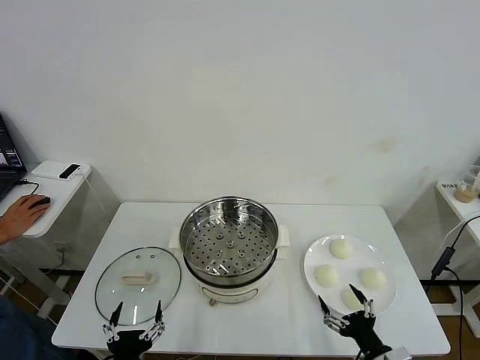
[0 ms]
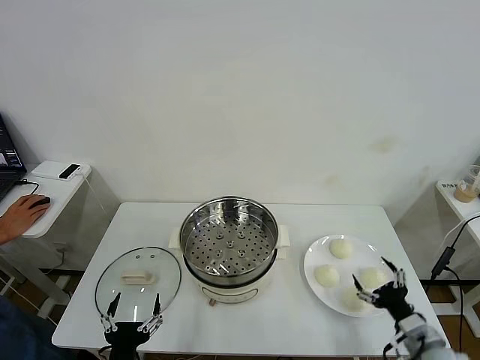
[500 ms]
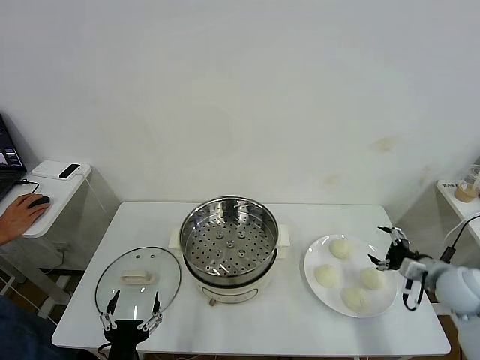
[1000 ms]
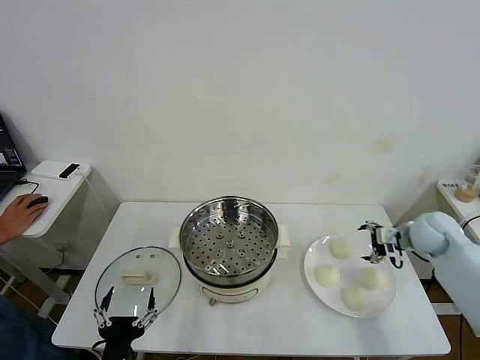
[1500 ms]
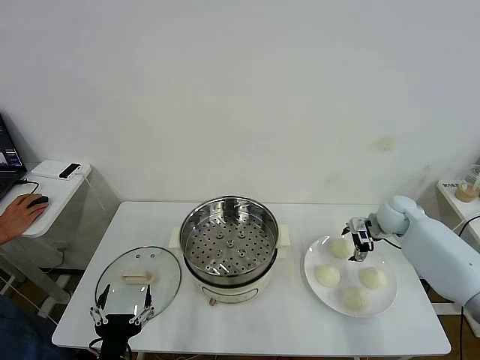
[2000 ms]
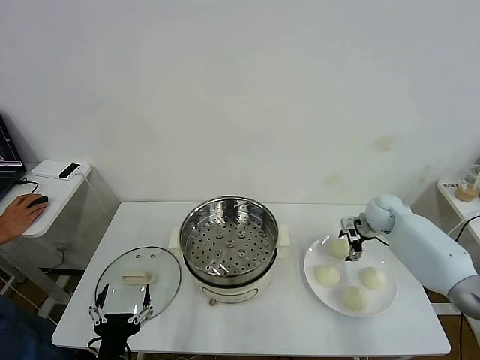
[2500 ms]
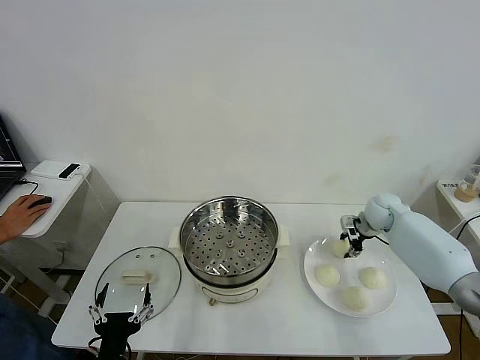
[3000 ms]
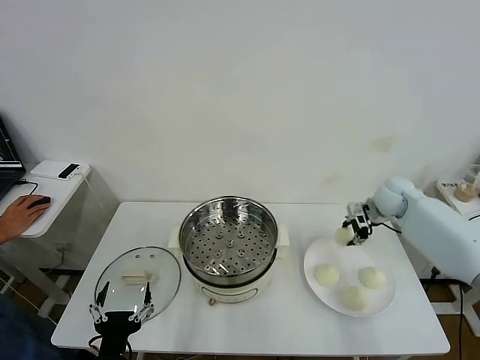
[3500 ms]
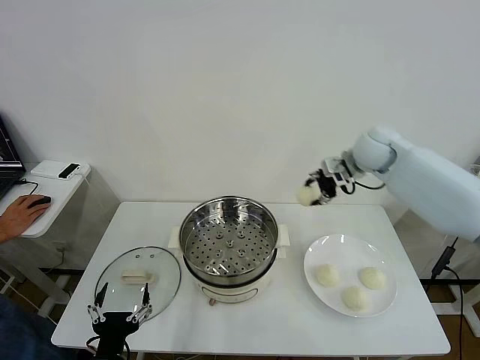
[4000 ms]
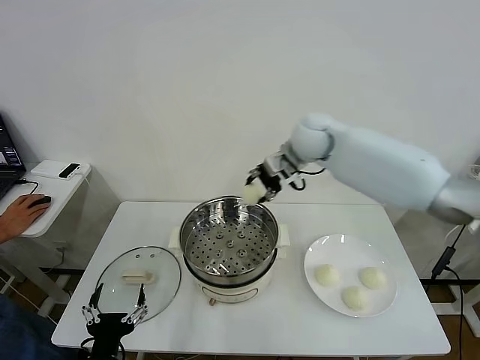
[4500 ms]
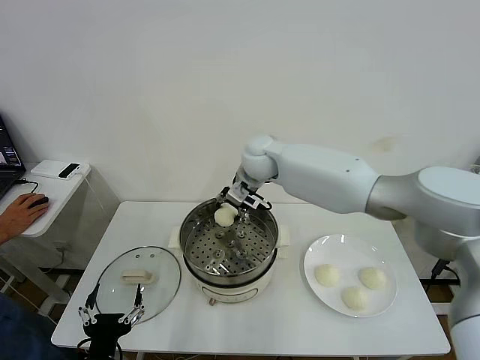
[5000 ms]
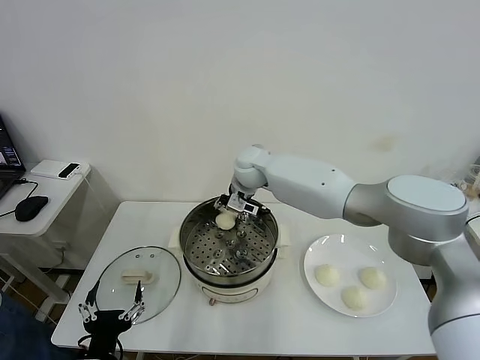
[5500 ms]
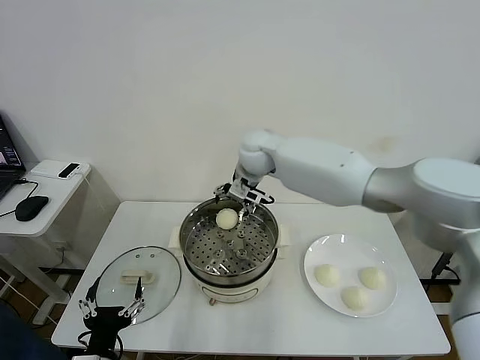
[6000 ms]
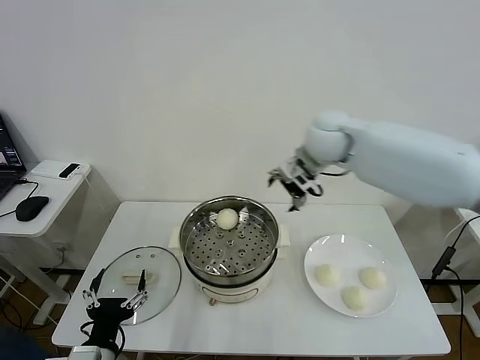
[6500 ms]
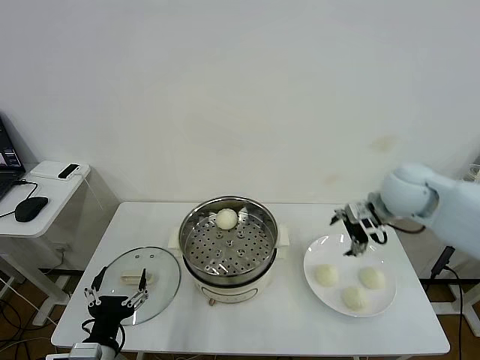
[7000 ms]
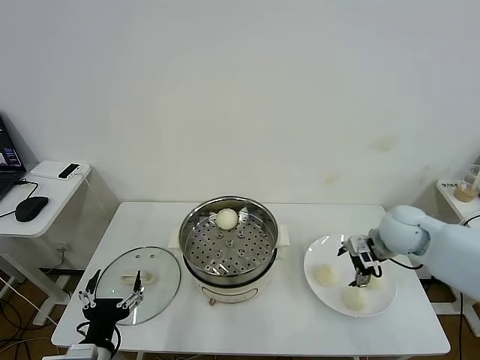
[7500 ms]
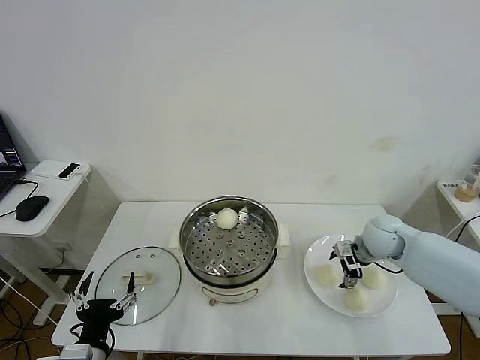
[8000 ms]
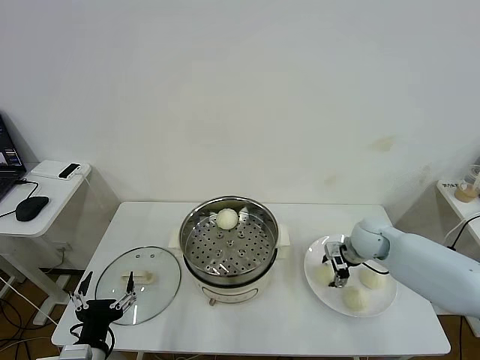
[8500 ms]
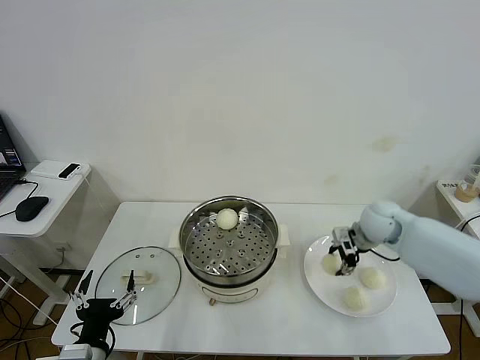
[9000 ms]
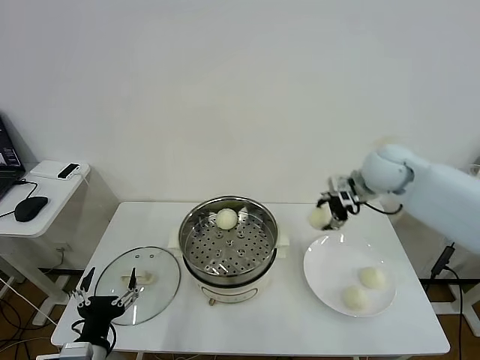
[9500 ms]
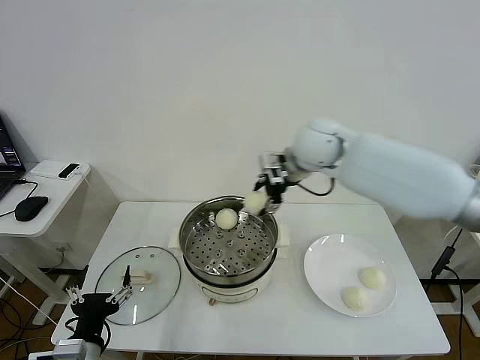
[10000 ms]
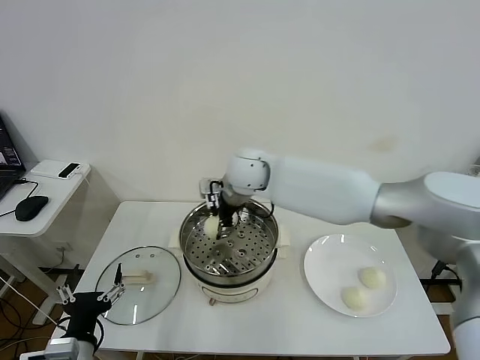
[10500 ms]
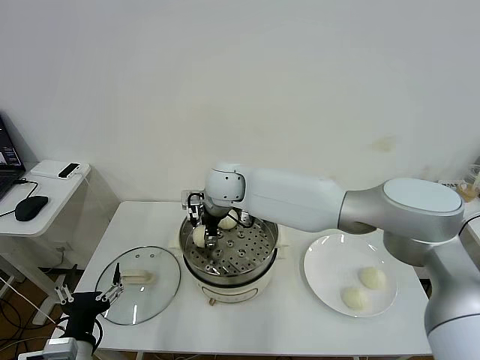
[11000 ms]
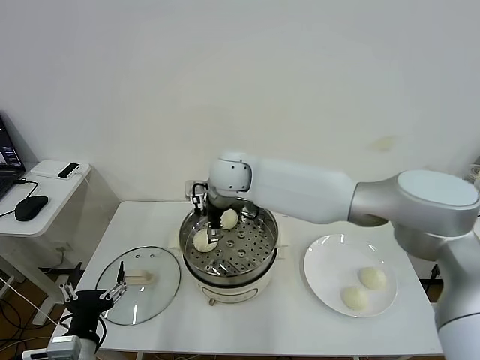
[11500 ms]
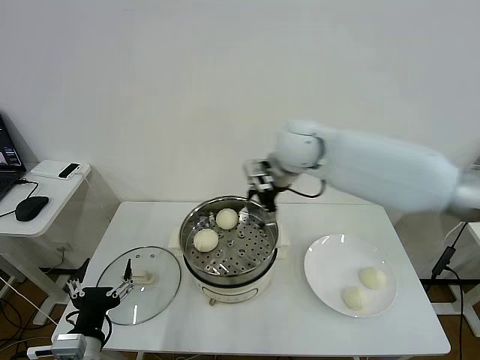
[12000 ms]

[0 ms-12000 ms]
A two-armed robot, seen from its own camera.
Task of the whole recording: take steamed baozi put them in steamer then cover it.
Step, 0 ms to 2500 ms: Grasp the baozi in the plate with right gripper.
Step, 3000 ms to 5500 ms: Place the baozi on the steamer with right gripper.
Step, 6000 ms to 8500 ms: Grasp the baozi in the plate with right gripper.
Step, 9000 ms to 11000 ms: Place the baozi on the steamer with right gripper.
2000 ms to 4000 ms: The right gripper shifts roughly 20 cm upward and to the left, and closes its fingers.
4000 ms to 6000 ms: The right gripper shifts some 25 cm to the left, and opens.
6000 ms to 8000 ms: The right gripper heads to the right, downward and backward, covering roughly 35 cm.
8000 ms to 10000 ms: The right gripper travels upward and to the left by roughly 30 cm, and closes up.
10000 ms to 12000 ms: The right gripper moves about 15 cm to the left and comes back, and opens.

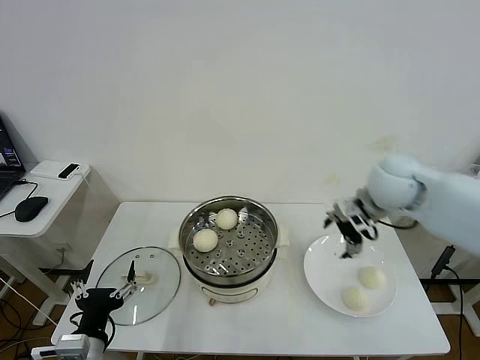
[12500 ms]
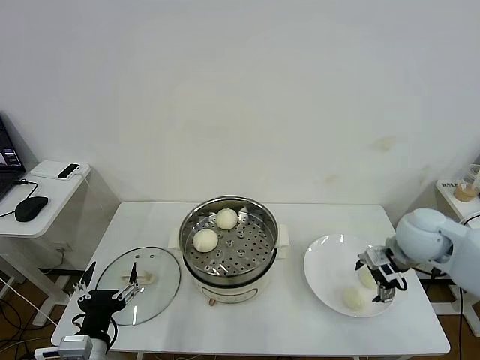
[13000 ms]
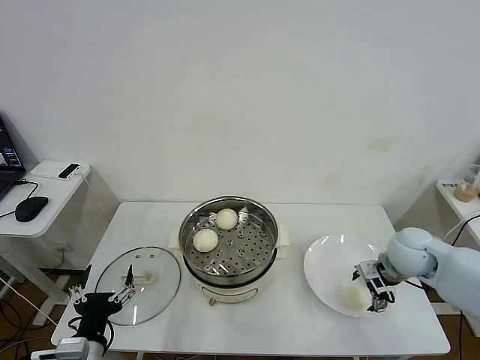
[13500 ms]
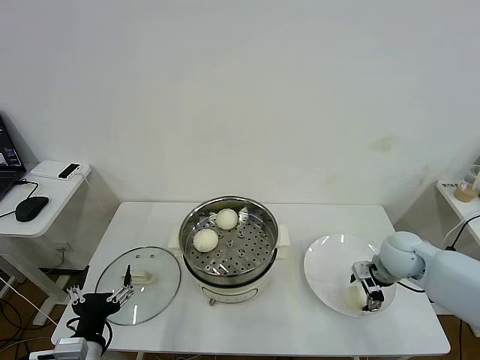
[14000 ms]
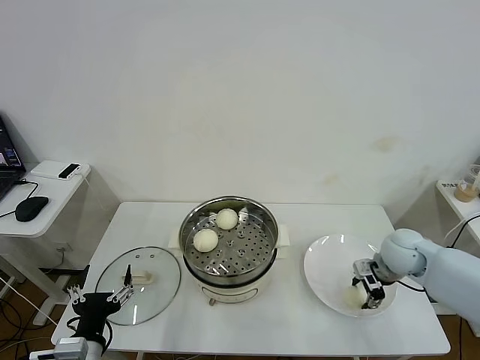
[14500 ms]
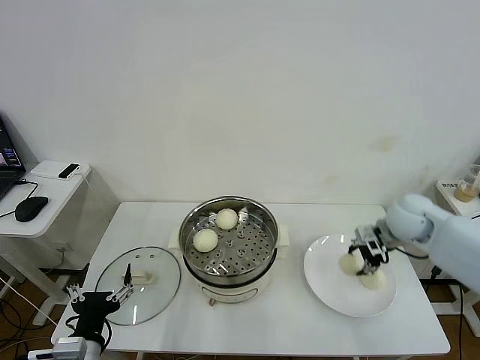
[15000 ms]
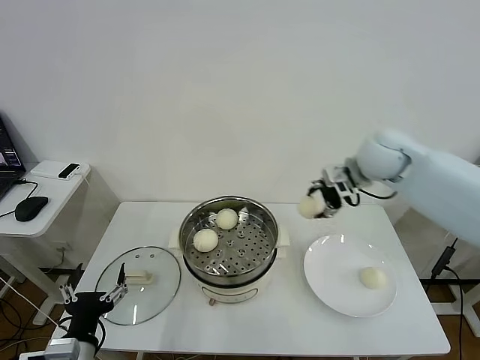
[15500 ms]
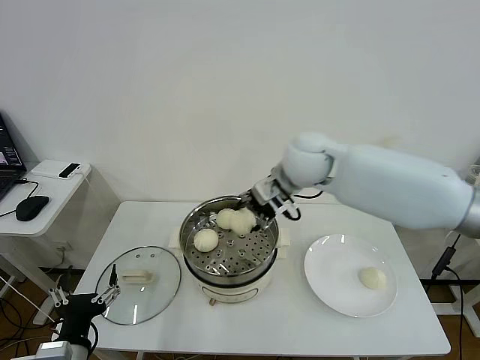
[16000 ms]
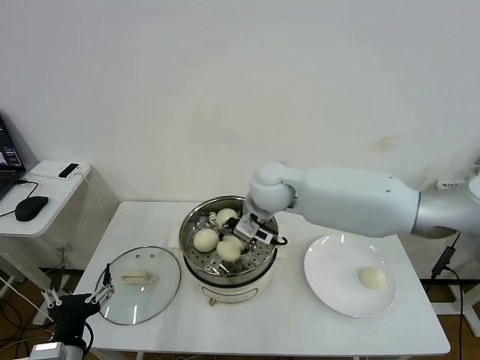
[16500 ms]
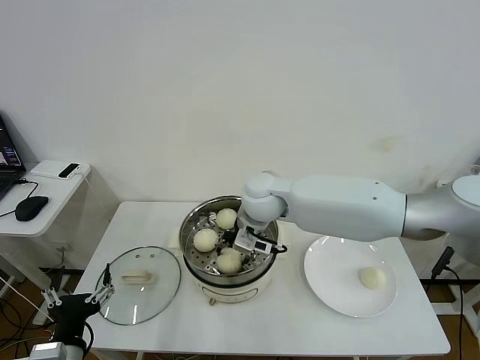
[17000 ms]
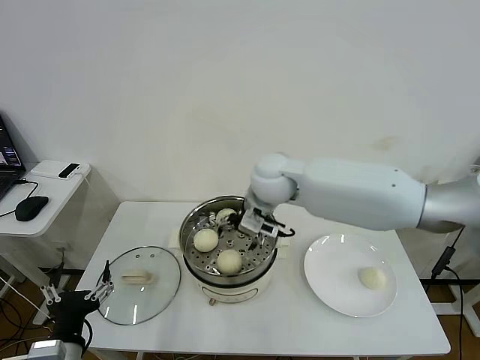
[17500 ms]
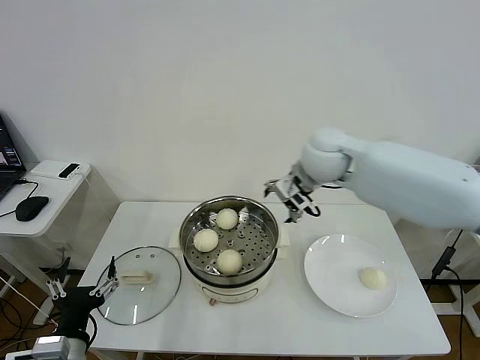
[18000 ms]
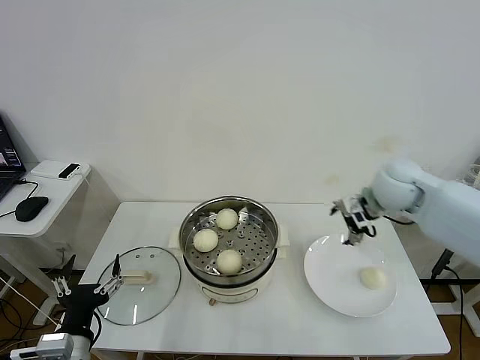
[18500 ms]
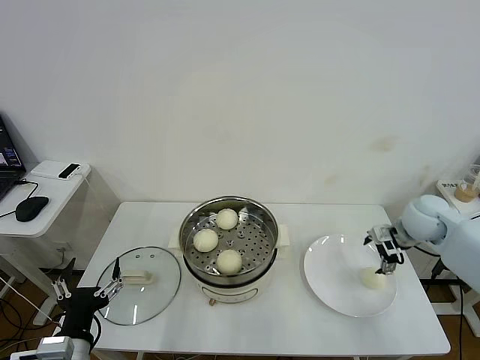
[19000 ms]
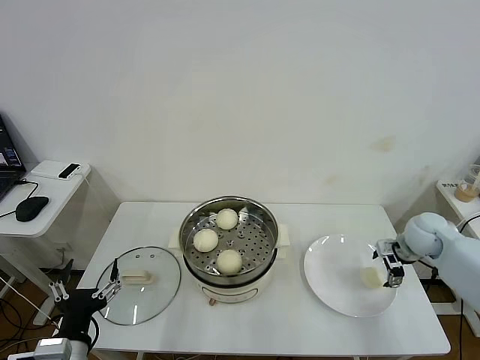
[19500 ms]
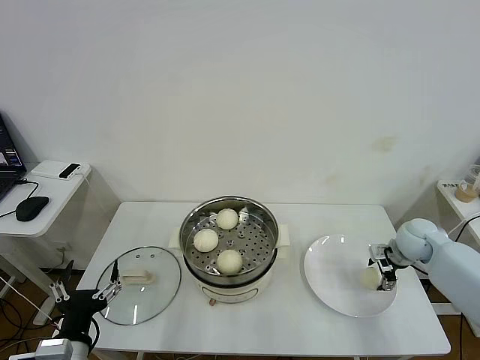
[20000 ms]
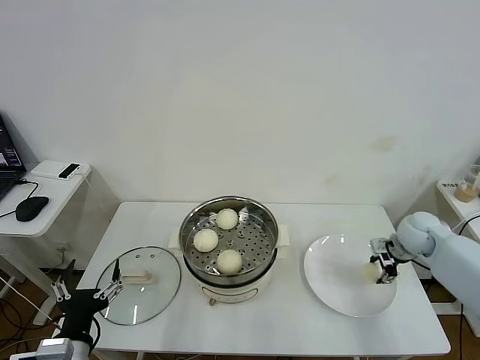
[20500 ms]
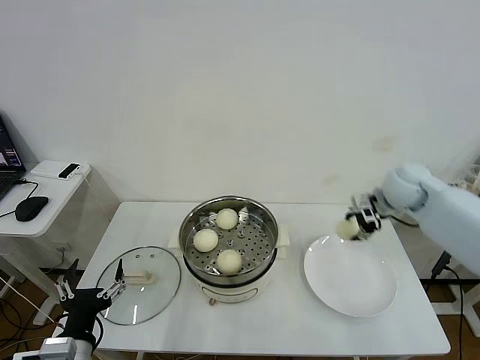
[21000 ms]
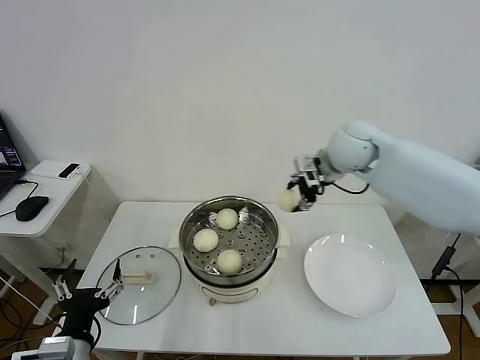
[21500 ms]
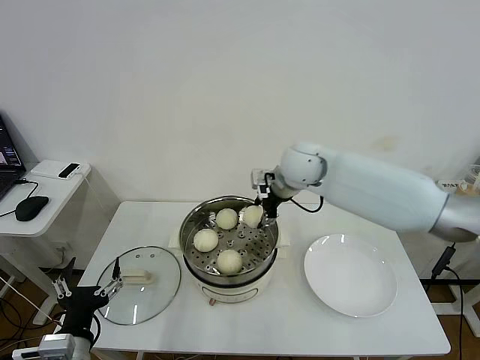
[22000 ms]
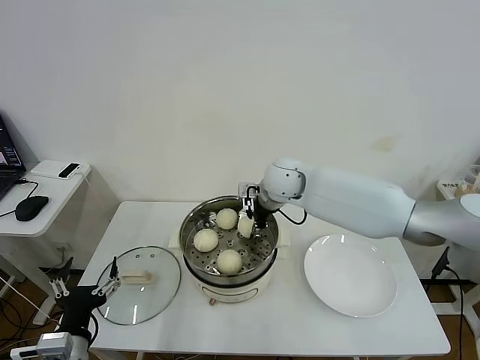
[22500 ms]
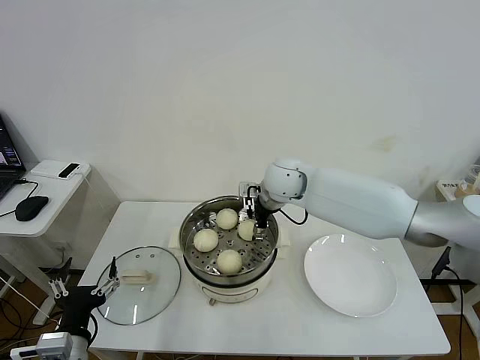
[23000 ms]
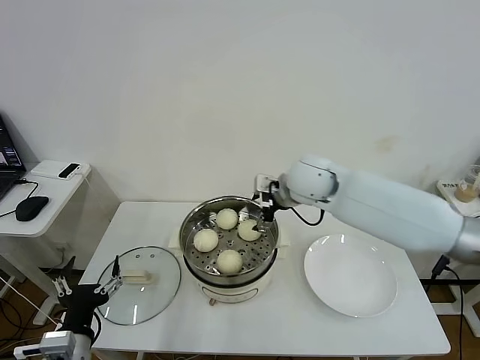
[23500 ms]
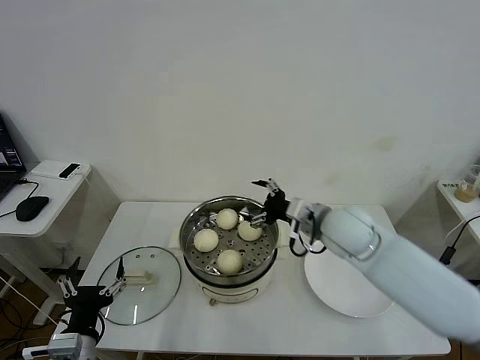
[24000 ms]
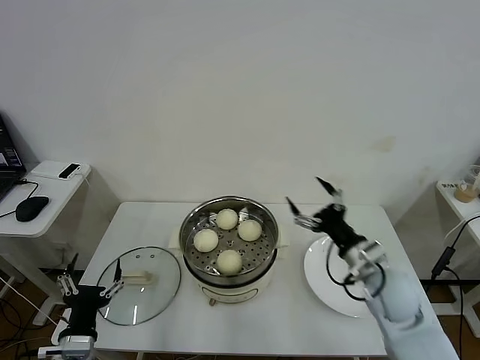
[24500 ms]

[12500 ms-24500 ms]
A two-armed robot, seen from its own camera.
Task of the whole recording: take steamed baozi put them in steamer then cover it.
Step, 12500 ms to 14500 ms: Grasp the baozi in the plate with right gripper.
Step, 15000 ms to 17000 ms: Place the baozi on the steamer with right gripper.
Step, 17500 ms to 20500 ms: Grasp the baozi in the plate with right gripper.
Step, 21000 ms to 23000 ms: Place the baozi on the steamer with right gripper.
12500 ms to 14500 ms: The right gripper shifts approximately 20 cm downward and to the right, and closes.
14500 ms to 16500 ms: The right gripper is displaced to the left and upward by about 35 cm.
16500 ms to 18500 ms: The right gripper travels to the right by approximately 25 cm, and opens its fingers.
18500 ms to 20500 ms: The right gripper is displaced downward and to the right by about 20 cm, and closes its fingers.
20500 ms to 22500 ms: The right gripper travels to the left by some 35 cm.
22500 ms to 24500 ms: The right gripper shifts roughly 30 cm backward, to the right and downward, and opens up.

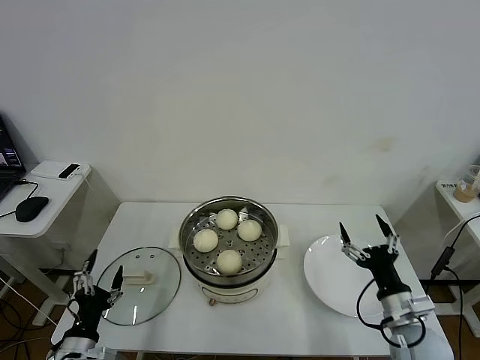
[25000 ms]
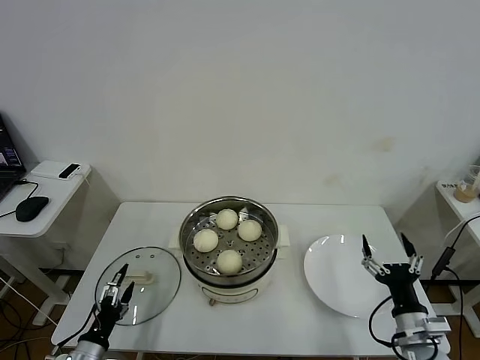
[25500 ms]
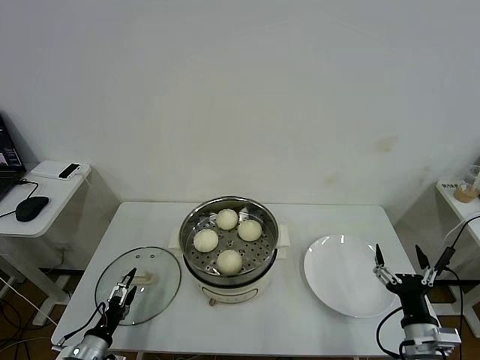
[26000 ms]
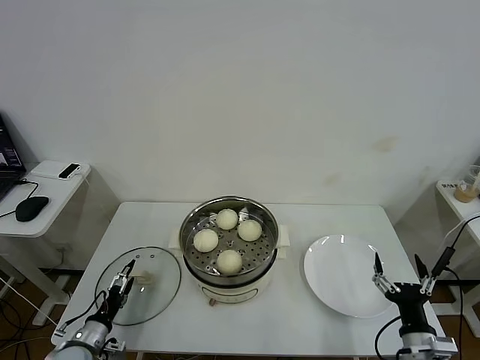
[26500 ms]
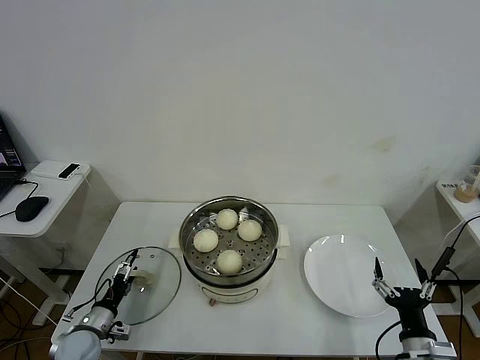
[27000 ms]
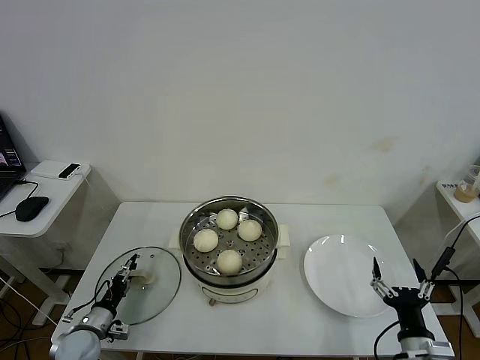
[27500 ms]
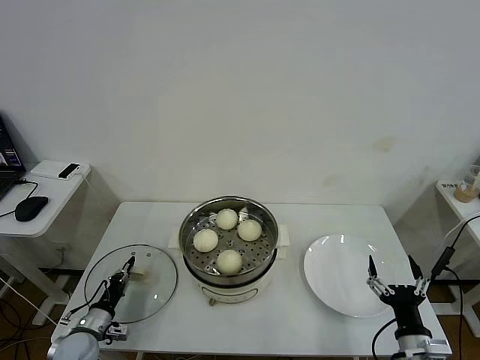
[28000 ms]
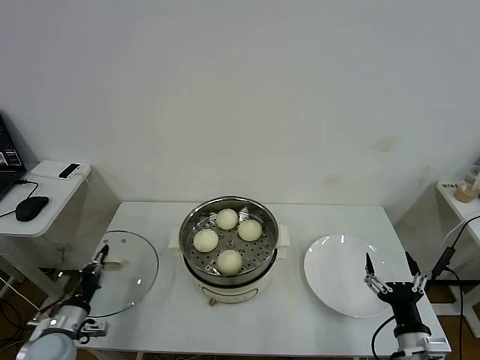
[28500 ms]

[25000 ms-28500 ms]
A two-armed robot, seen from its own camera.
Task of the whole recording: take steamed baozi put them in steamer then cover it.
Step, 25000 ms to 28000 ms: Grasp the pot lid with left gripper.
25000 ms to 27000 ms: The right gripper travels backward by approximately 10 cm. Meanwhile the left gripper is displaced forward, downward and to the left by approximately 15 cm.
27000 ms to 28500 ms: The left gripper ends up about 5 cm from where it was, and closes up.
